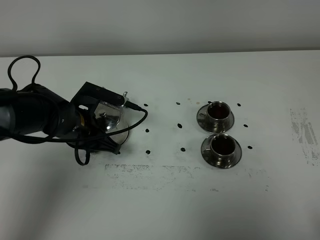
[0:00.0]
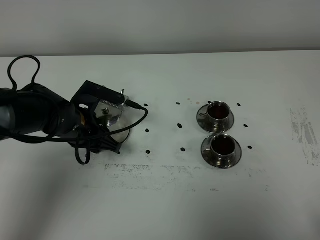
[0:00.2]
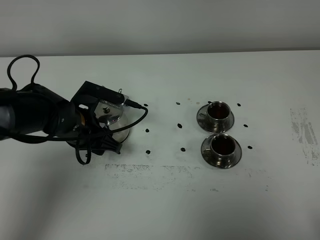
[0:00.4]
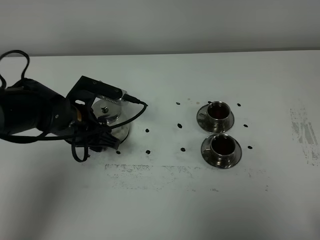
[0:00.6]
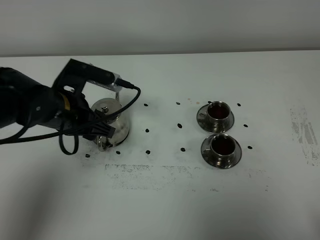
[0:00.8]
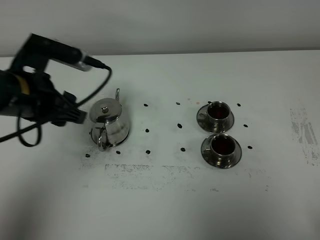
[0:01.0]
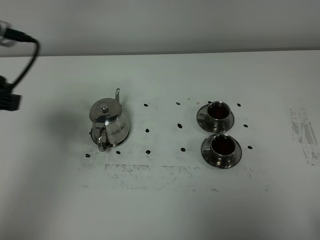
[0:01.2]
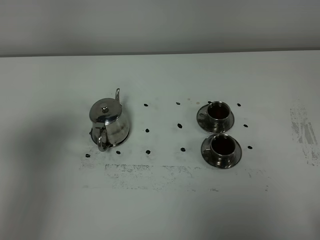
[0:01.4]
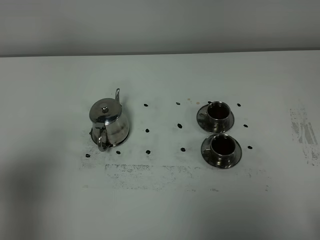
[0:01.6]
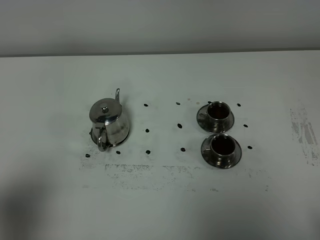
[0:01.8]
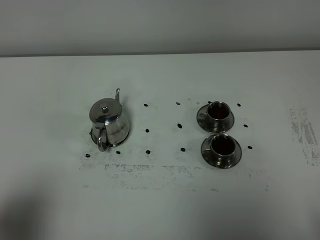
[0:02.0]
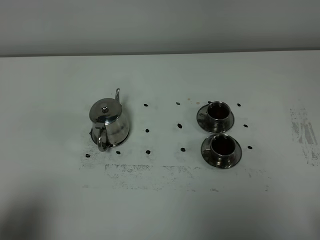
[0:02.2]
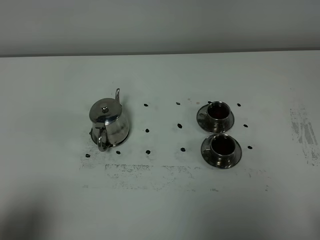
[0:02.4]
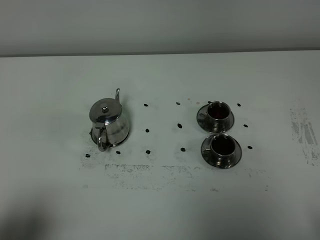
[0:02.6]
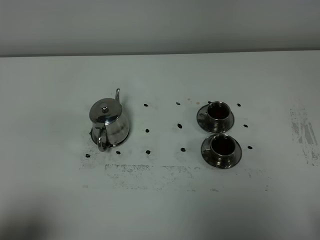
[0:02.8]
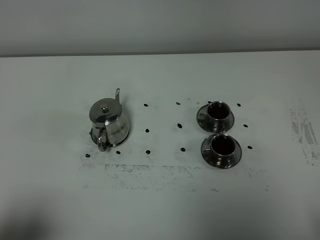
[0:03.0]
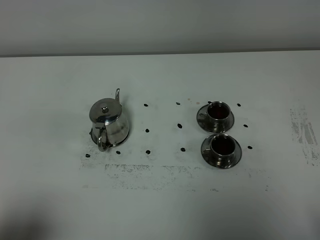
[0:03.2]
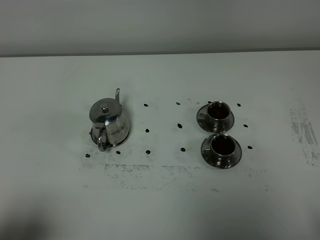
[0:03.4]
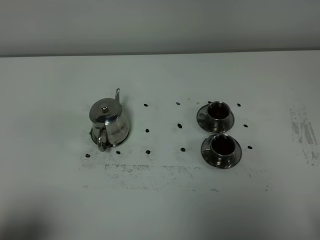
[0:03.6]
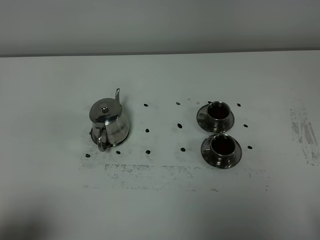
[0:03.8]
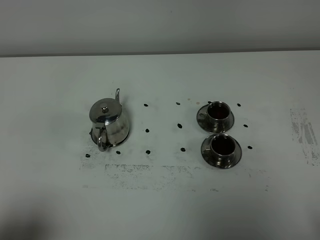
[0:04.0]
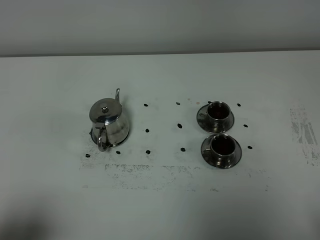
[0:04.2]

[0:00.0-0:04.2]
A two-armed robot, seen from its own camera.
Task of the whole recording: grasp the stainless steel teapot and pour the tea into the two stainless steel teacups one by one, put the stainless steel teapot back in its original place.
0:00.0 to 0:01.4: The left gripper shifts approximately 30 cm upward, backward and to the left, and opens its fingers.
0:01.4 to 0:02.8: The left gripper travels backward and downward by approximately 15 cm.
0:02.8 to 0:04.2: Neither gripper changes place.
